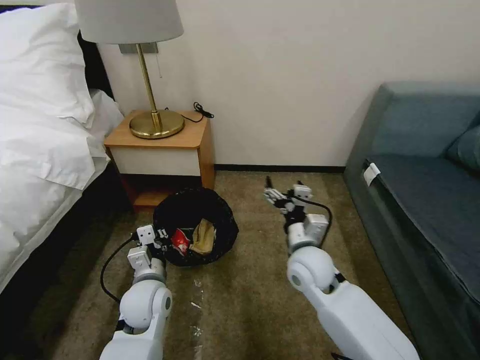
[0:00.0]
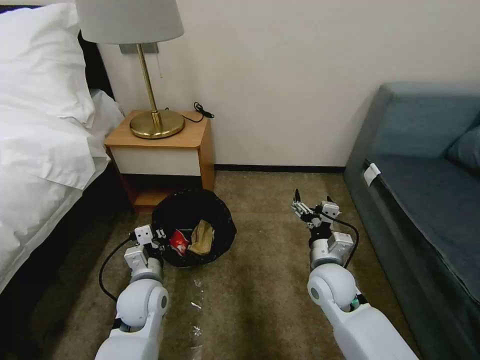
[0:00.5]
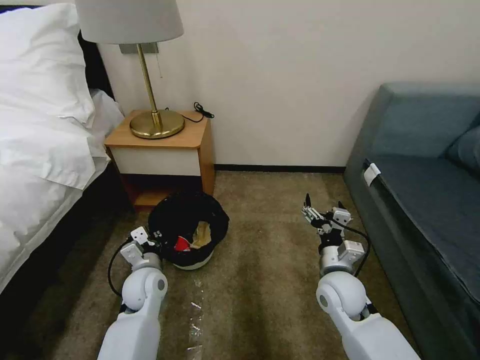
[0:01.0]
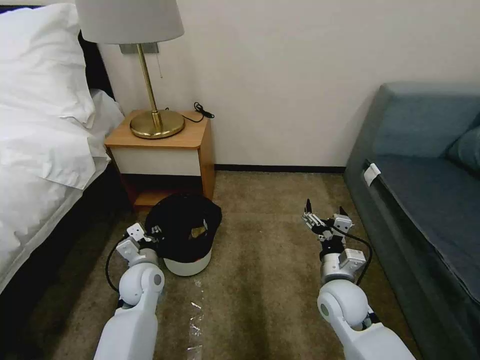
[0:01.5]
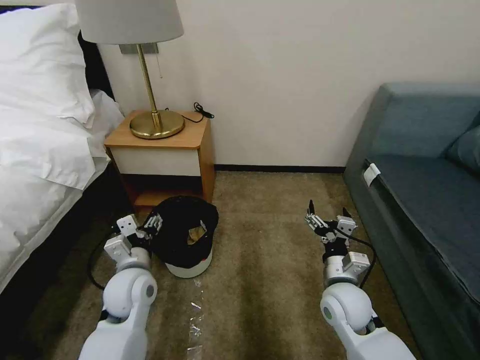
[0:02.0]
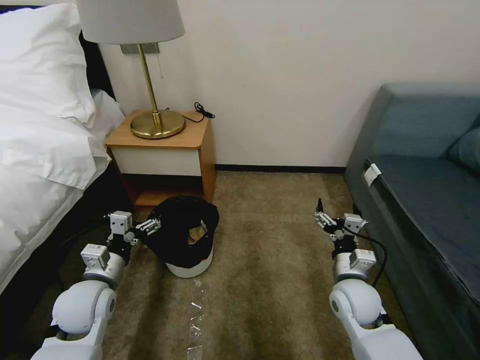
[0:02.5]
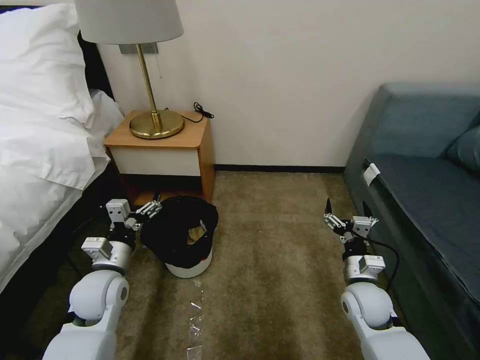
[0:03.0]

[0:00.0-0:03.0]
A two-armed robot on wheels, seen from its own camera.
Task of the whole recording: Pick up the trash bin, then pick up the garbage on the floor and place it into the trash bin.
0:00.0 to 0:01.5: The right gripper goes approximately 10 cm to the right, downward and backward. The left gripper goes approximately 5 cm forward.
0:01.5 to 0:03.0: The right gripper travels to the right by about 5 cm; the left gripper goes some 10 cm upward and to the left, and opens.
